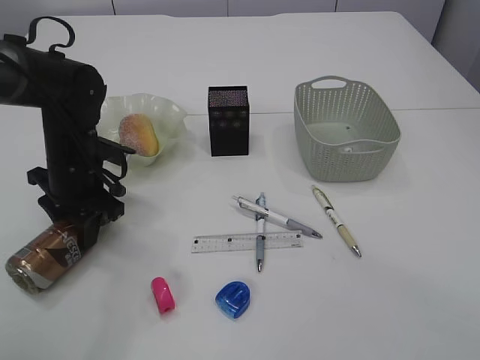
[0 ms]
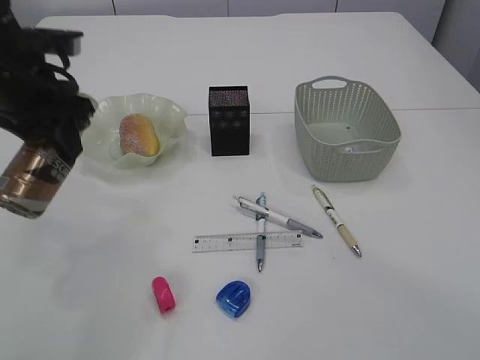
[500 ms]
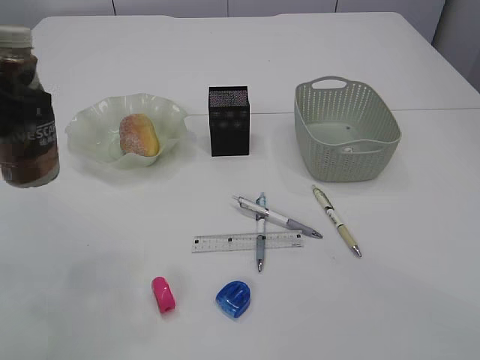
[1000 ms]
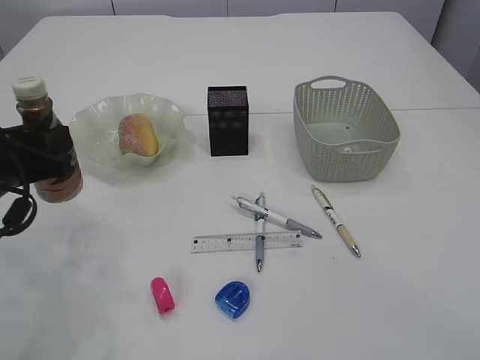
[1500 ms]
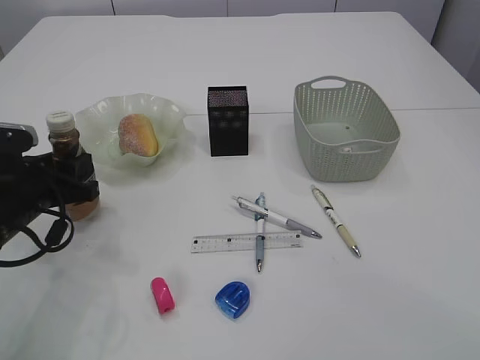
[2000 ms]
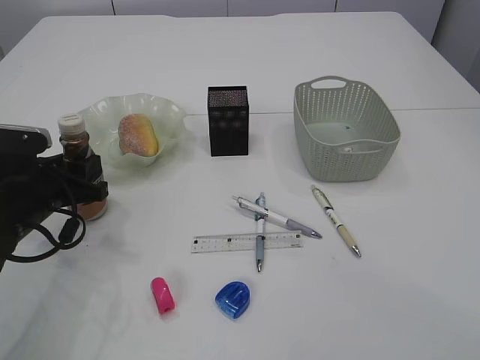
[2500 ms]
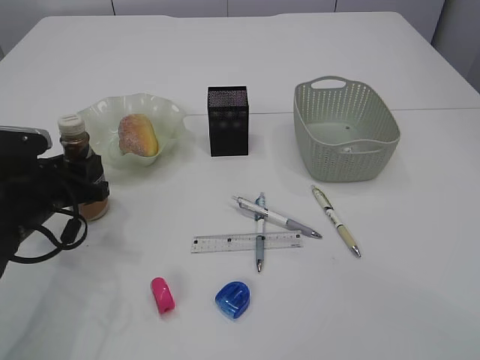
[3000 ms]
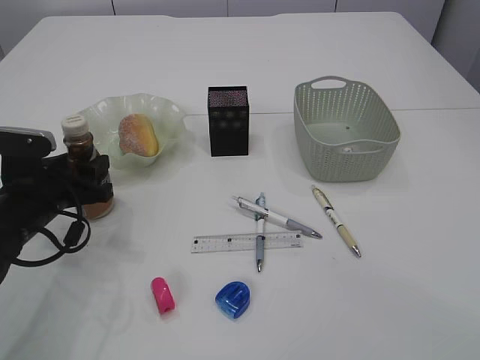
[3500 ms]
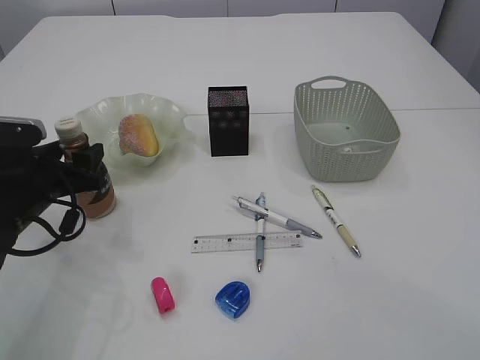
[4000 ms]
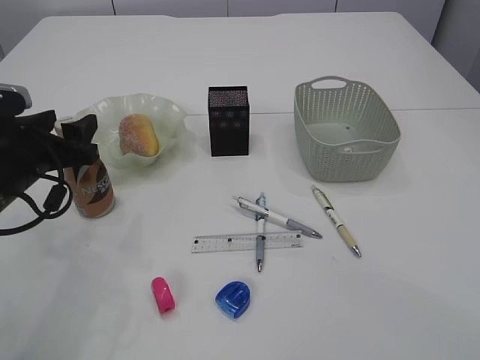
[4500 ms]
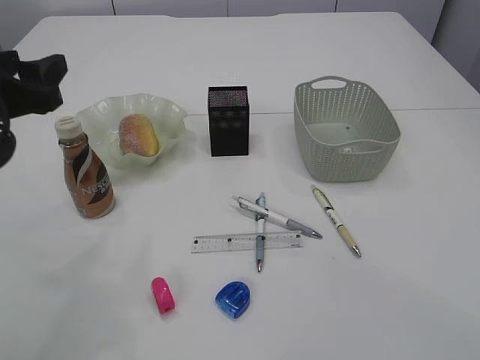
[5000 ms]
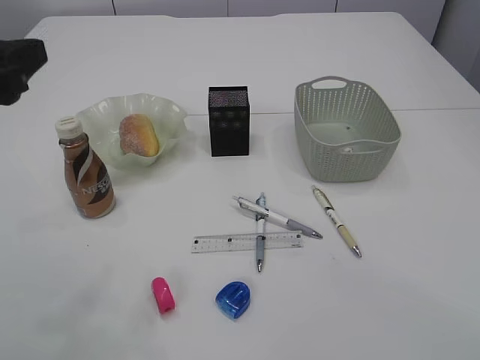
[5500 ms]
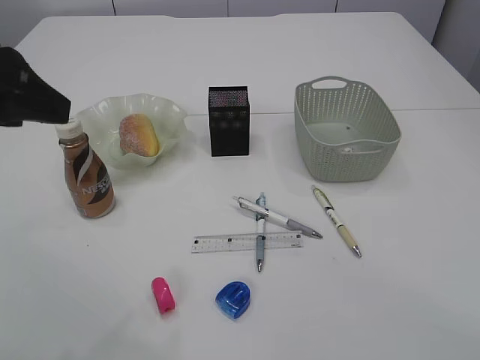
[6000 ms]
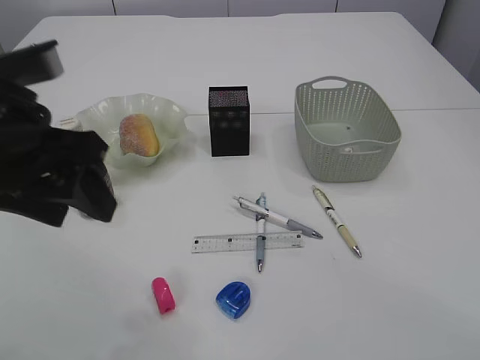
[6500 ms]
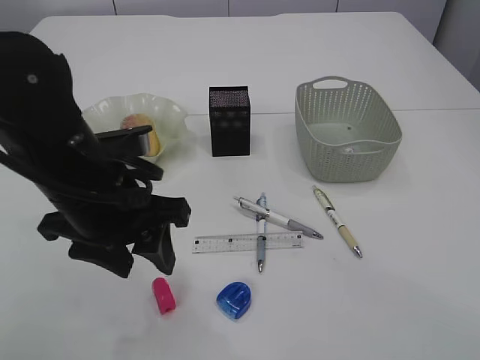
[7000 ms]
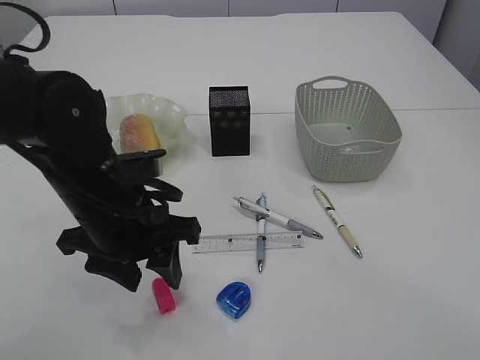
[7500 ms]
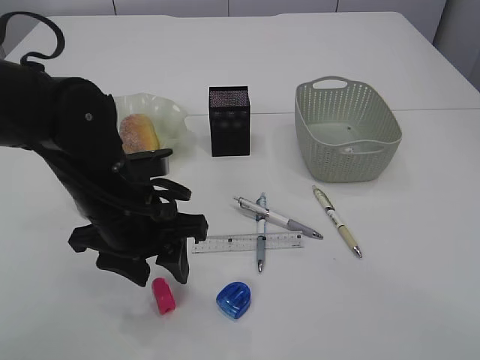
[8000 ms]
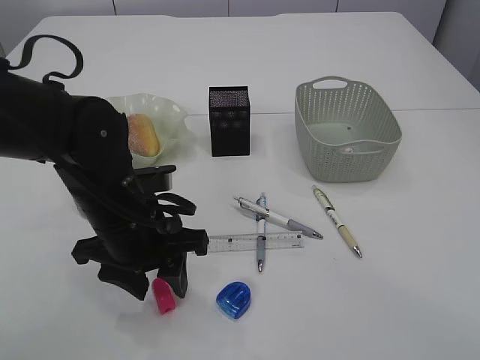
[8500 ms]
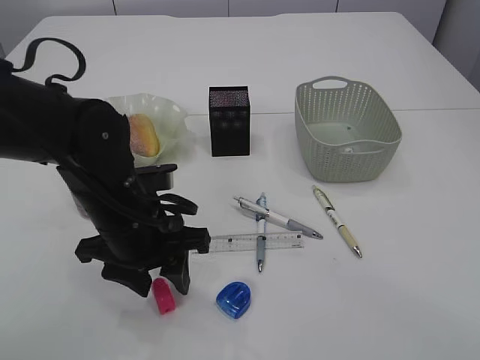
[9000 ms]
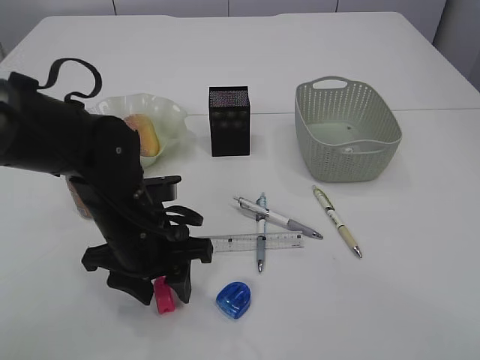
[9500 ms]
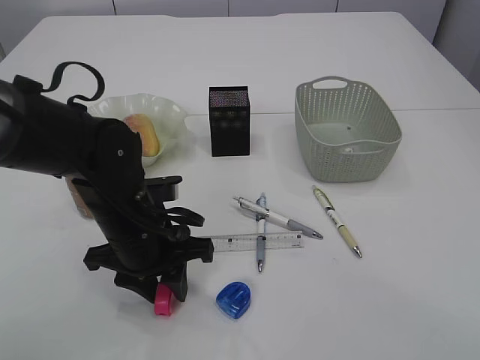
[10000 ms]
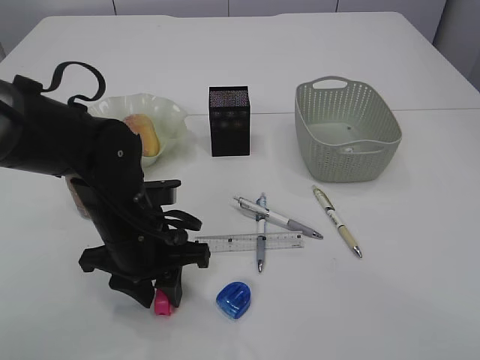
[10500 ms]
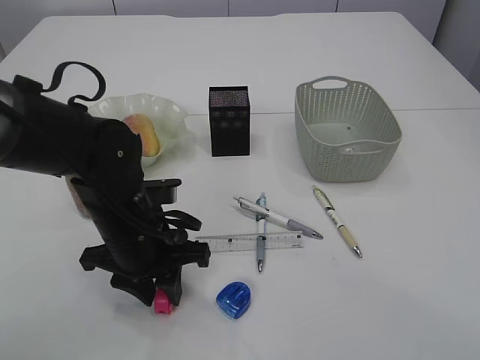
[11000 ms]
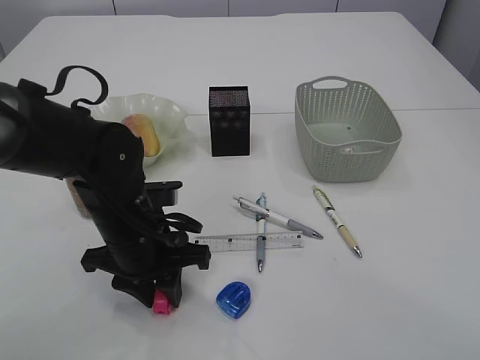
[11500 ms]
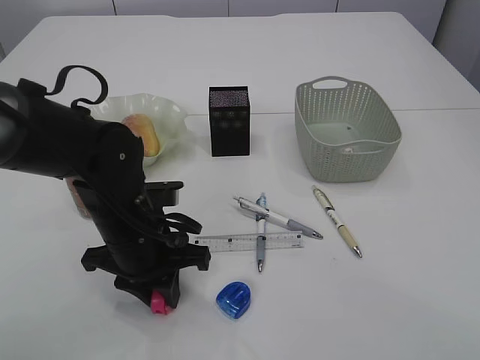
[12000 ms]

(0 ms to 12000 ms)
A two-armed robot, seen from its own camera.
Step, 500 ms - 4500 ms: Place the bottle.
0 ms - 2000 ms: The left gripper heads backward, covering about 10 cm, and travels upward and back again, about 15 cm each way.
2000 ms - 4000 ms: The left gripper opens up.
4000 ms - 6000 ms: The left gripper travels upward and backward by some 25 cm.
6000 ms - 8000 ms: The left gripper shifts approximately 20 cm downward and to the right.
8000 ms - 10000 ms: The grippers move only a little.
10000 ms - 12000 ms: Neither gripper changes place.

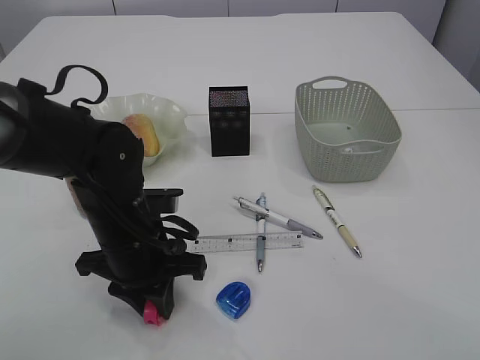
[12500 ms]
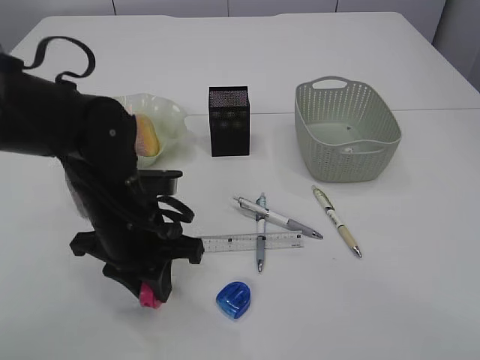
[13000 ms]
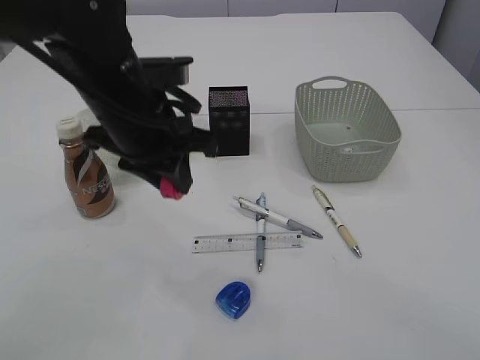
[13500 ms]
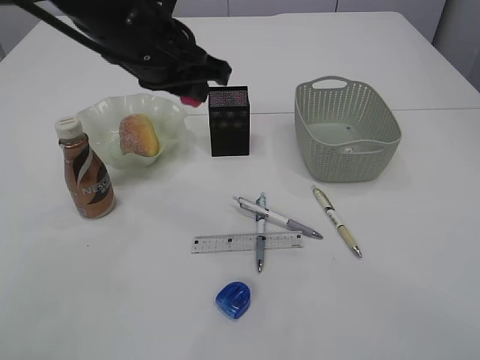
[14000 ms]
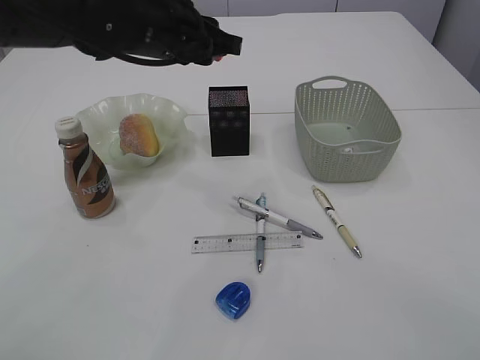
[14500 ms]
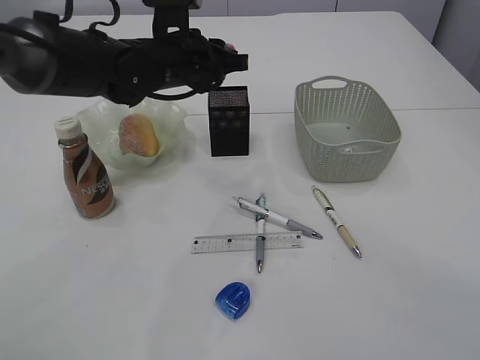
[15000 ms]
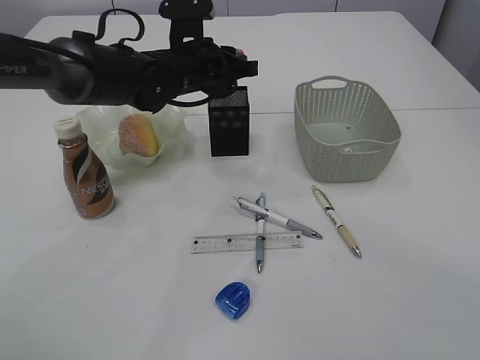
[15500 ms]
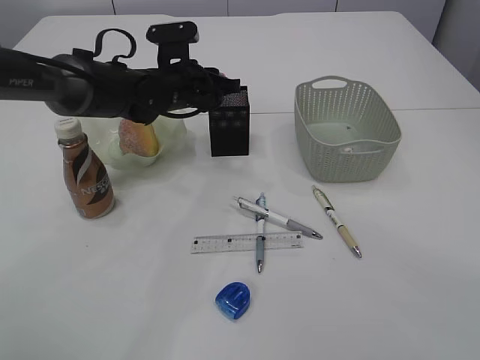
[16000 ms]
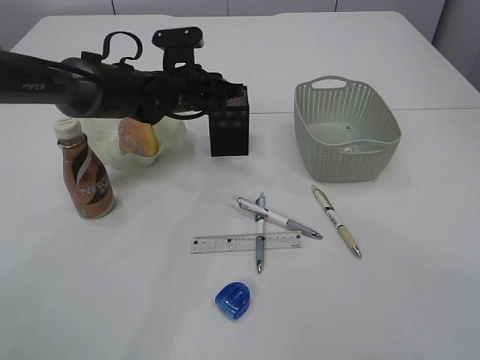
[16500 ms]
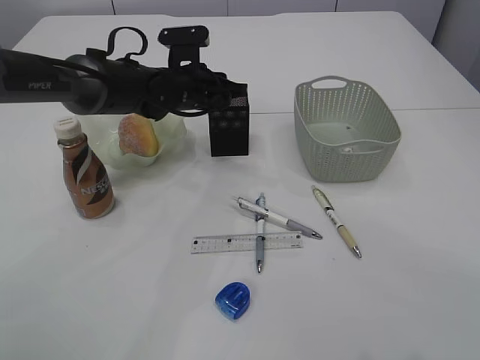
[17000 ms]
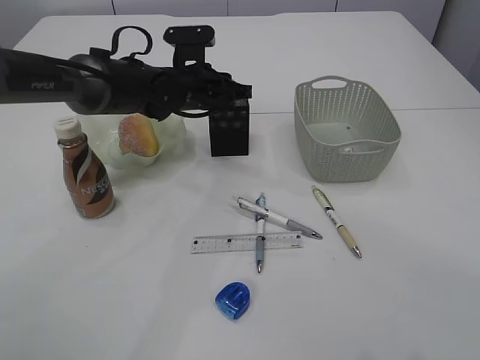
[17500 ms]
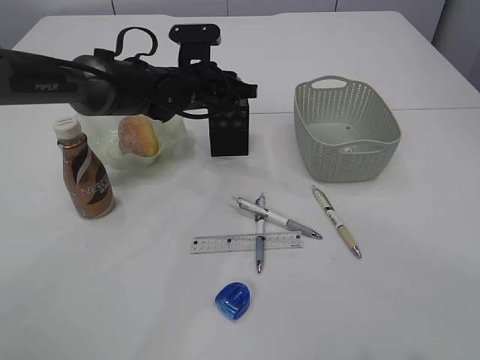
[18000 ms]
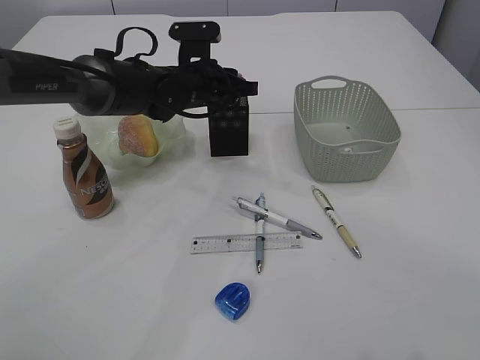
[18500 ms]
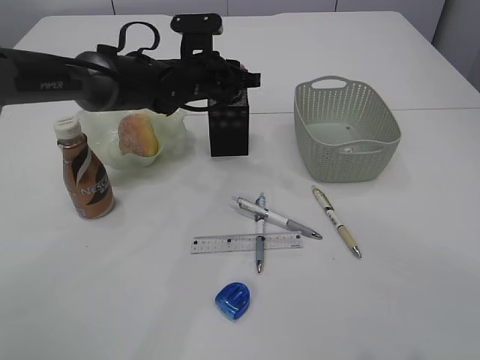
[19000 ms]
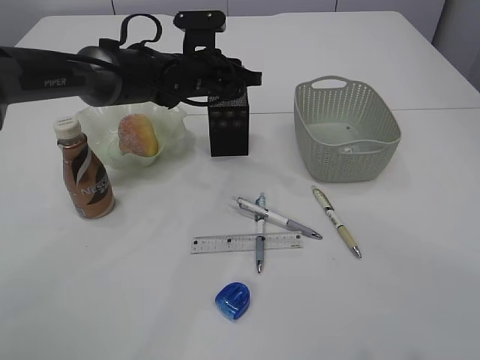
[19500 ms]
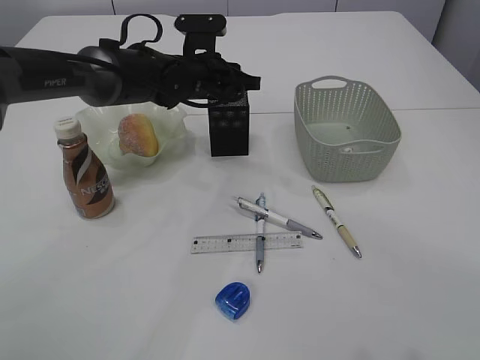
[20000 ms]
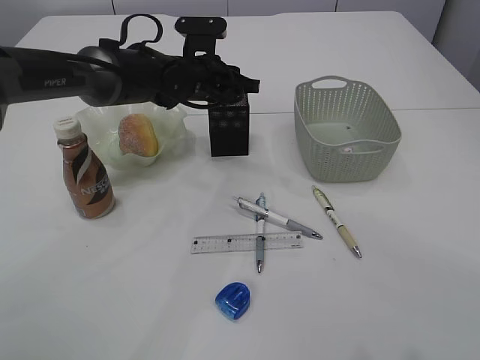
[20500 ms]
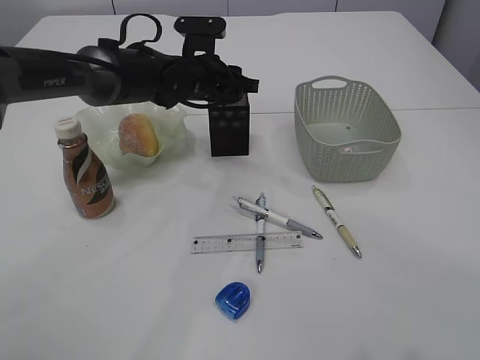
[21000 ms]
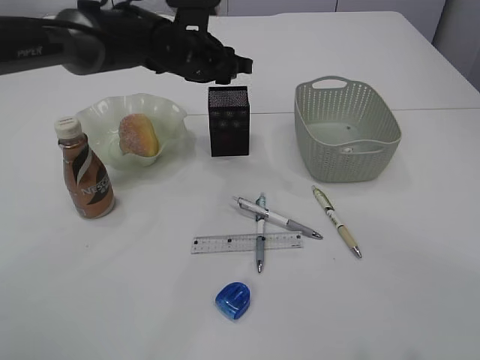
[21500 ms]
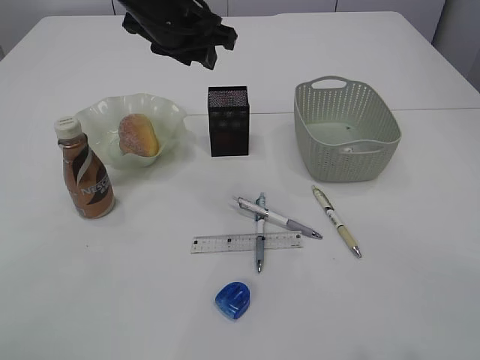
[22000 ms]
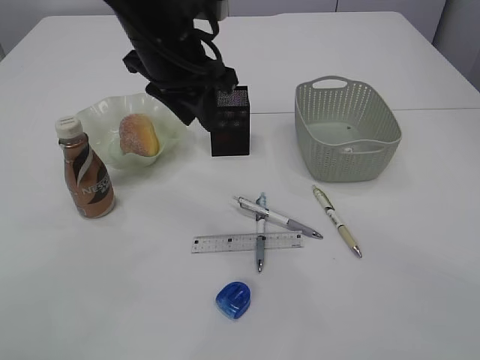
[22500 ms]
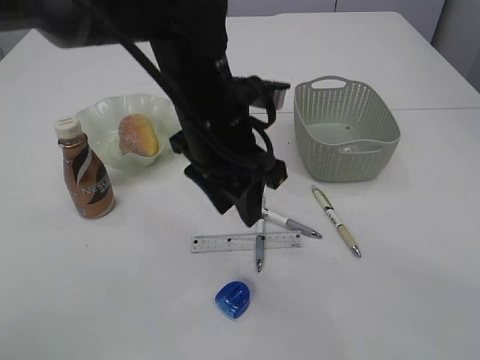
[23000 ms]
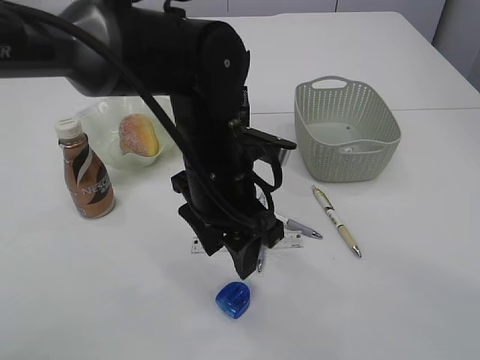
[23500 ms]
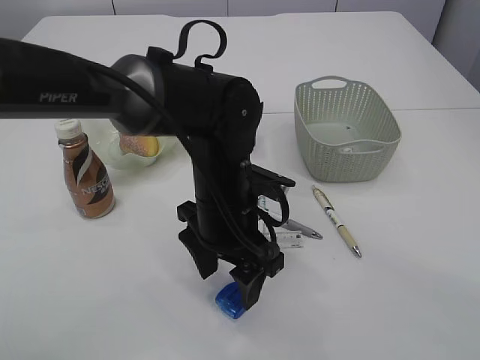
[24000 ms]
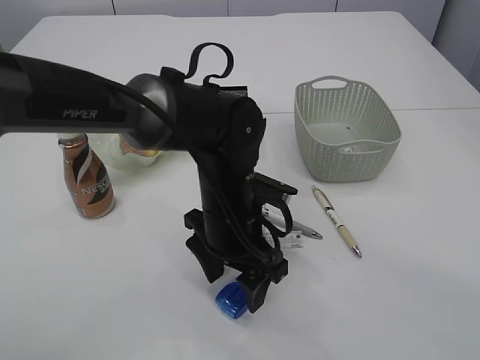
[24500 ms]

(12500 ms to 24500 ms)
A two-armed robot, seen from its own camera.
Step, 13500 ms - 21500 ms: Place the red pencil sharpener into the pen holder.
12500 ms - 14500 ms: The left gripper is displaced upward and forward by roughly 20 cm.
14500 ms - 16500 ms: The right gripper is displaced forward by approximately 5 cm; the left gripper heads downward and forward, covering about 15 cm.
16500 ms - 20500 ms: The grippers move only a little.
20500 ms - 22500 ms: The left gripper travels upward and backward by approximately 15 cm.
22500 ms - 24500 ms: The left gripper shifts about 20 cm downward, backward and to the right, and opens.

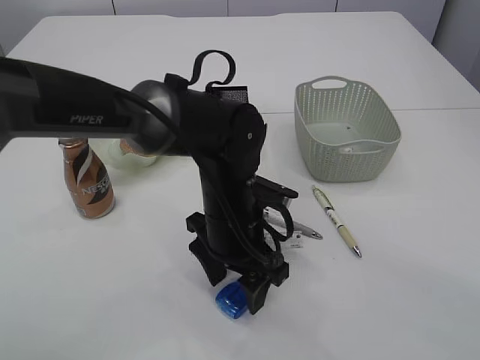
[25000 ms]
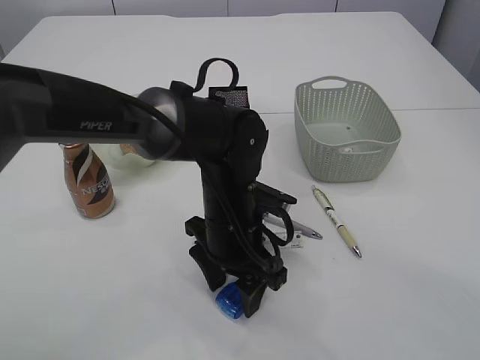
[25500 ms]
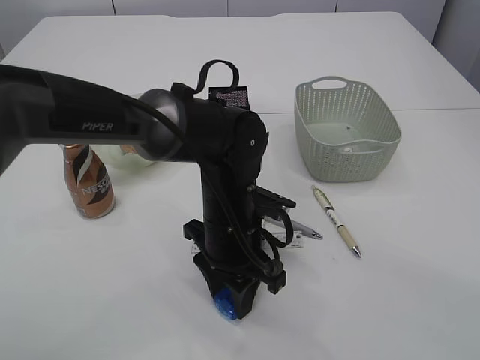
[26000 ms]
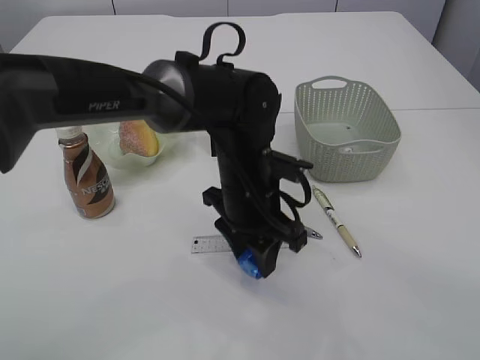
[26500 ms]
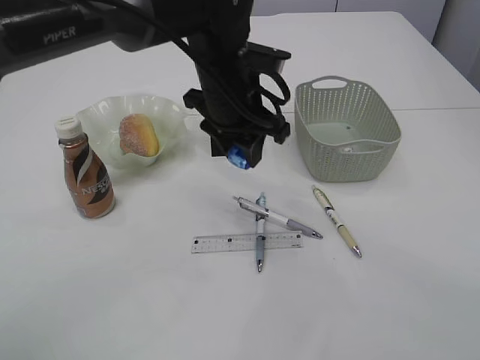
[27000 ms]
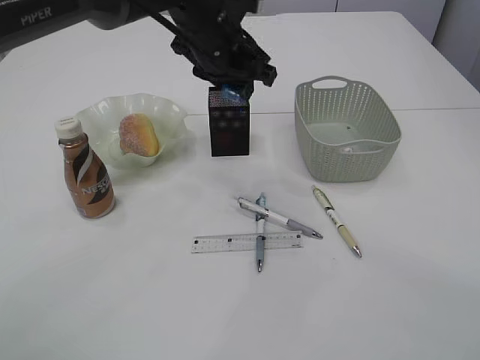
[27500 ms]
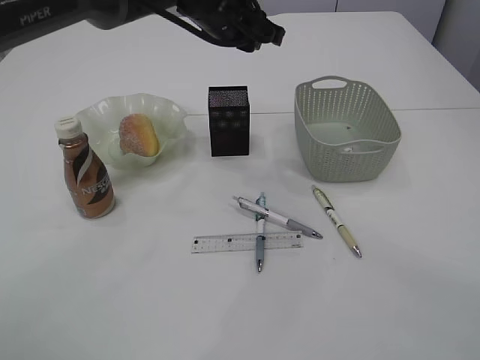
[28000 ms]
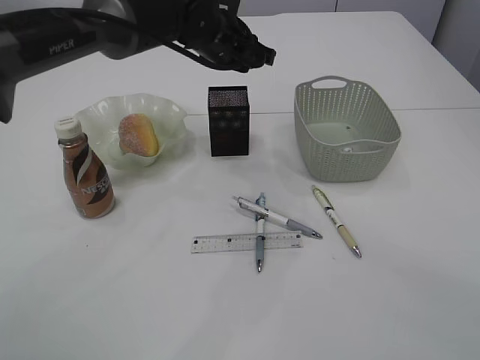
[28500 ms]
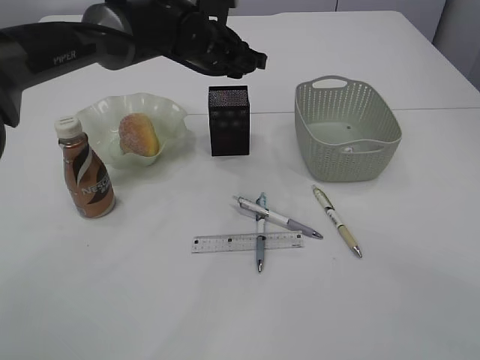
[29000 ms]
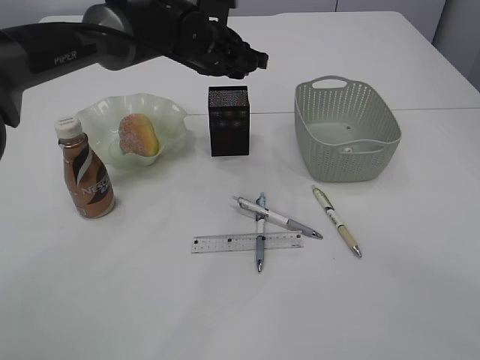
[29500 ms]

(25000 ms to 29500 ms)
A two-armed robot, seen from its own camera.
25000 ms - 27000 ms: The left gripper moves upward and forward, approximately 15 cm, and closes its fingers.
27000 ms - 29500 ms: The left gripper moves forward, about 10 cm.
